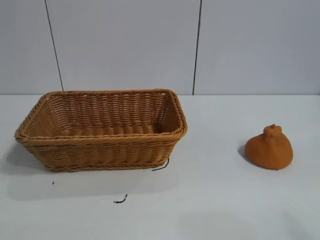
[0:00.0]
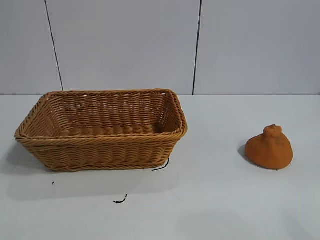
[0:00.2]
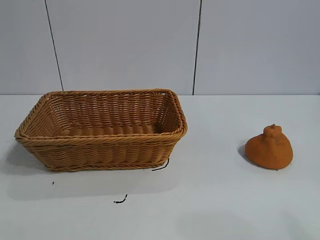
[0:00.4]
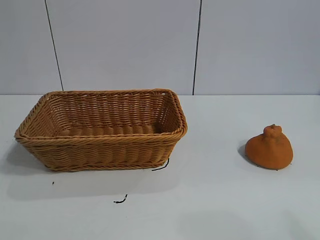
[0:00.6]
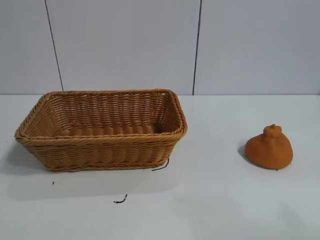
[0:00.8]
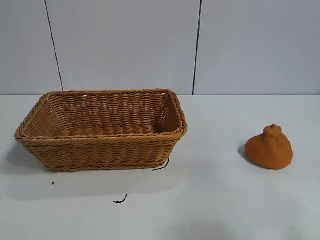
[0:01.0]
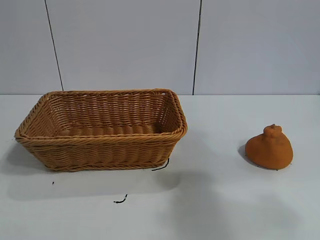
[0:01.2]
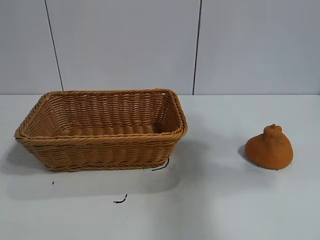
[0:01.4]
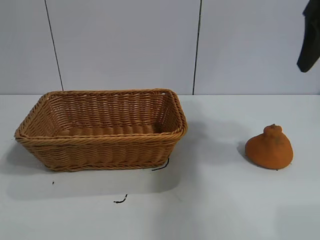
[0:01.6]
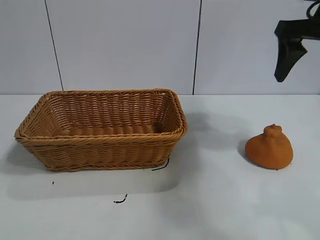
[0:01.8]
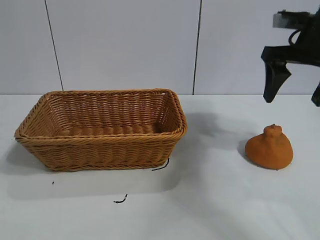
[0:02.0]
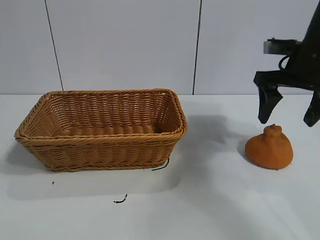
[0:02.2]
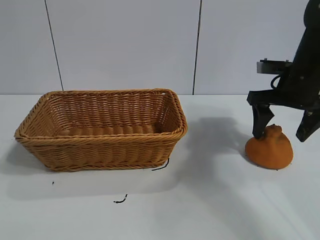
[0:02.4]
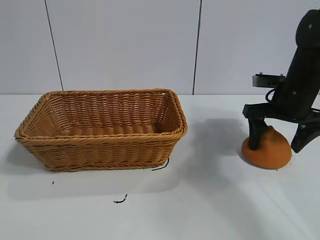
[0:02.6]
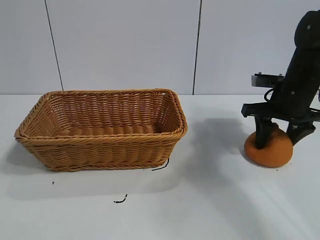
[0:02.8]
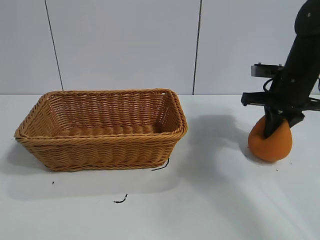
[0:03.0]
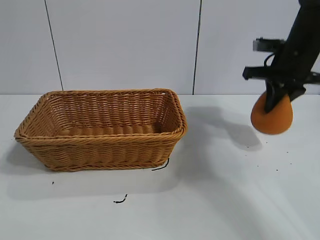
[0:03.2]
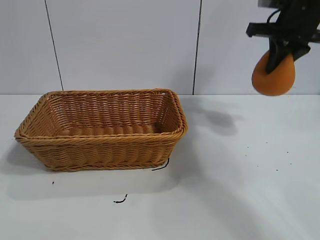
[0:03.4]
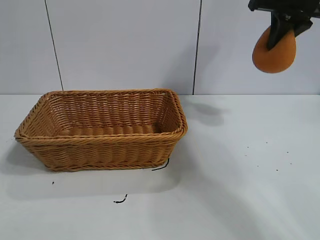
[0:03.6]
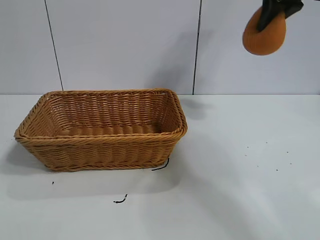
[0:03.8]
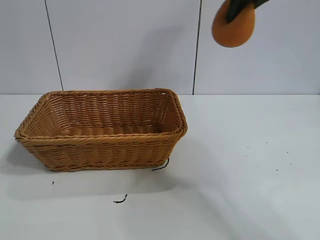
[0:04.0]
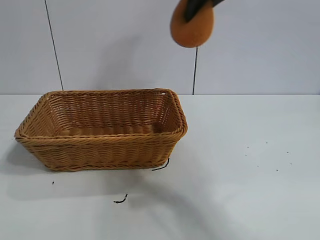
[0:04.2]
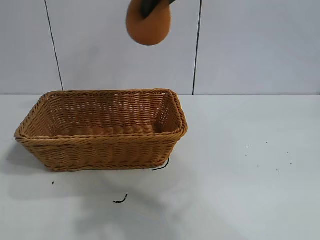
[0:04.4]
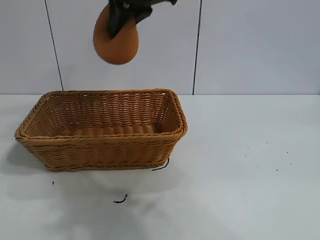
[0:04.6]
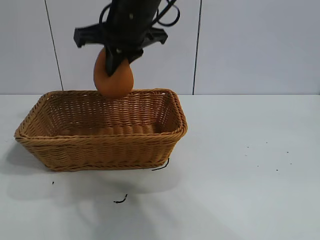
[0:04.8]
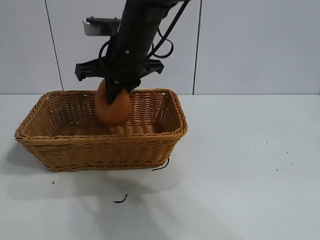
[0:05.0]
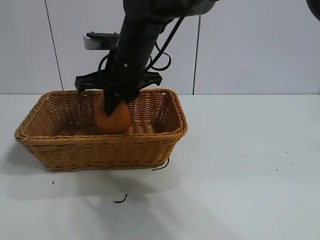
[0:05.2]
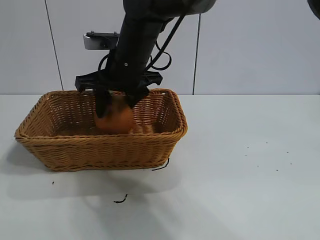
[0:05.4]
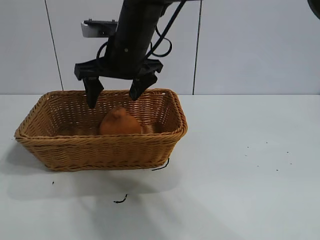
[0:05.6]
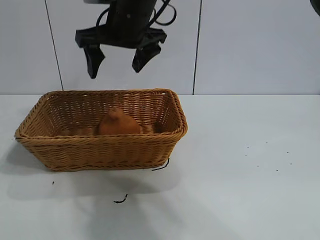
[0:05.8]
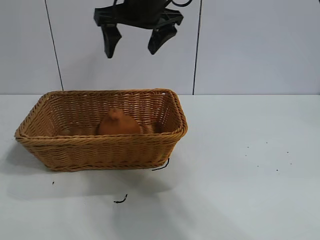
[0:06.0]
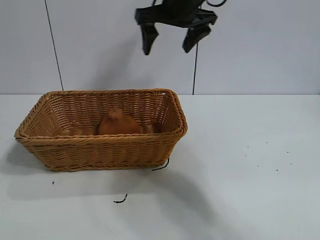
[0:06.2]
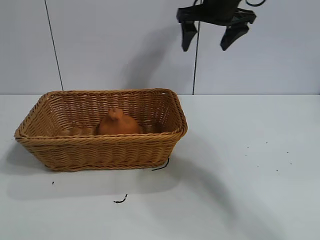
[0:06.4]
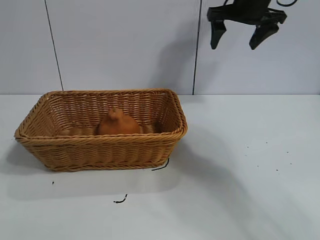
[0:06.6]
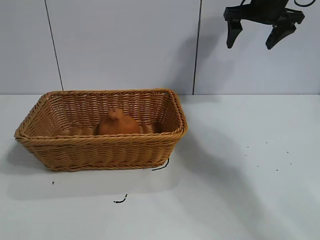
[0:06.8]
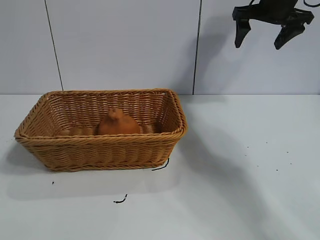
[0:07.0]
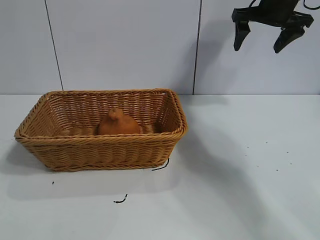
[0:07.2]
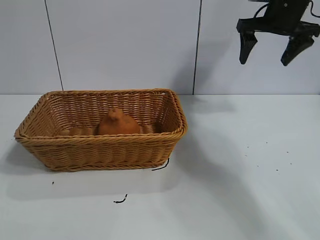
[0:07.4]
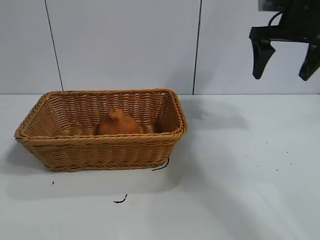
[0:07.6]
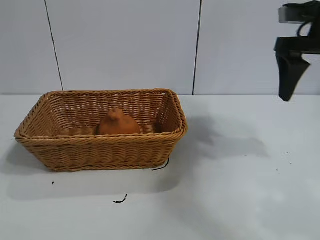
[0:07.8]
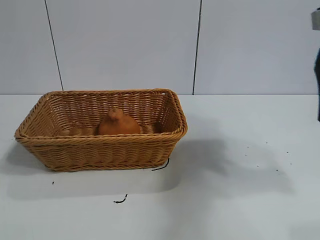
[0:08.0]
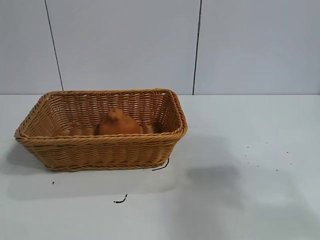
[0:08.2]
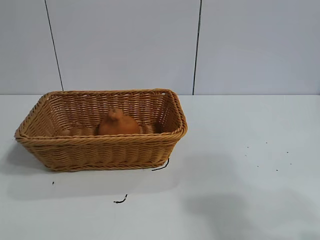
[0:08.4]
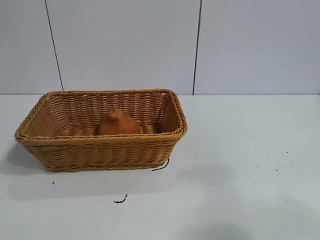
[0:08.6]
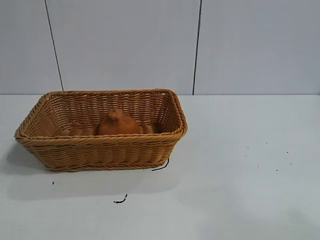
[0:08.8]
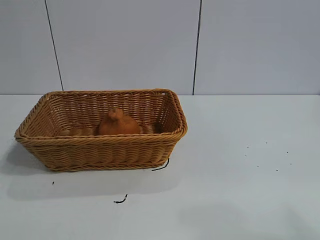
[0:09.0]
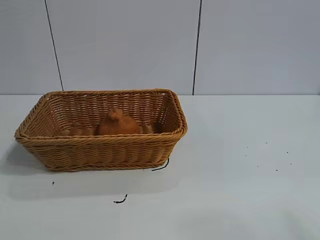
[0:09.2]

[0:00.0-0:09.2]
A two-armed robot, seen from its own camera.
Task of the whole recording: pick up the orange and put it into the basket.
Step, 0:00.8 to 0:03.0: Grasp the orange with right gripper.
Step, 0:03.2 to 0:05.4: Place the orange in the basket with right gripper.
